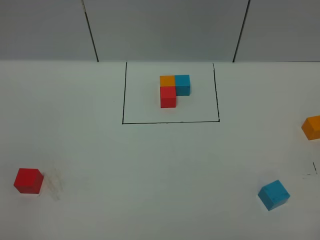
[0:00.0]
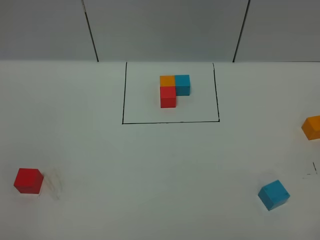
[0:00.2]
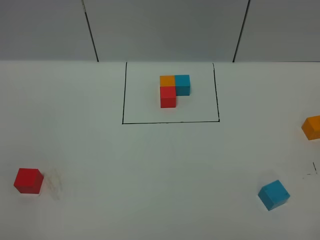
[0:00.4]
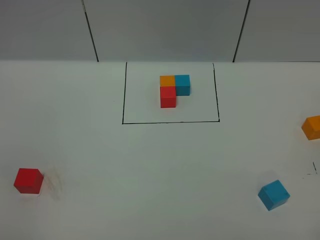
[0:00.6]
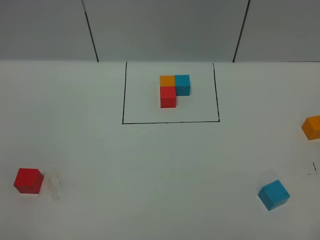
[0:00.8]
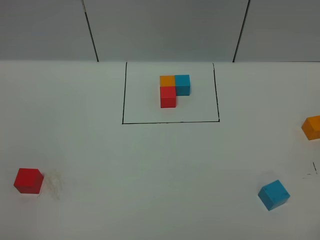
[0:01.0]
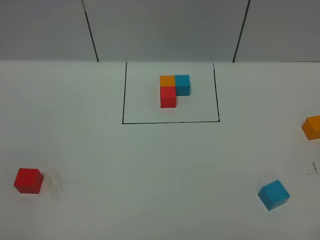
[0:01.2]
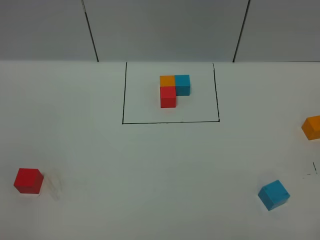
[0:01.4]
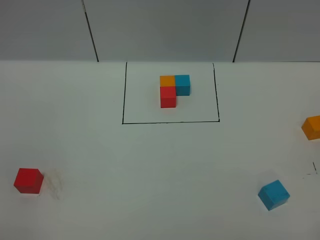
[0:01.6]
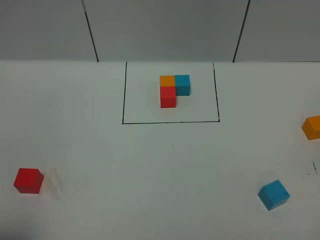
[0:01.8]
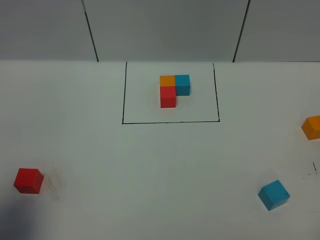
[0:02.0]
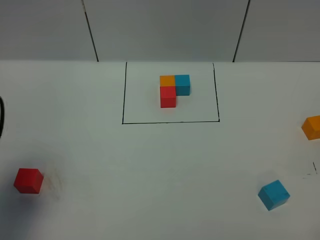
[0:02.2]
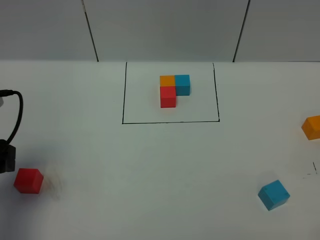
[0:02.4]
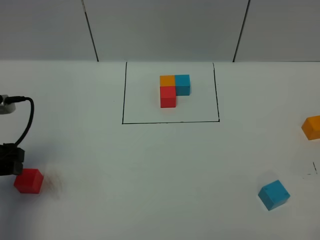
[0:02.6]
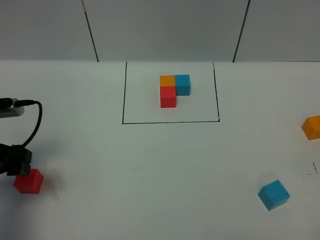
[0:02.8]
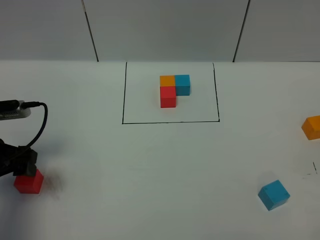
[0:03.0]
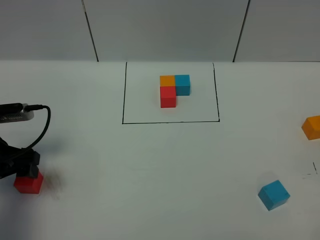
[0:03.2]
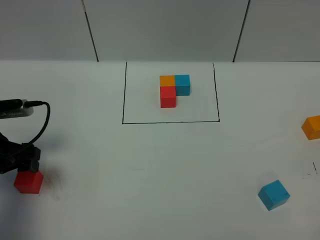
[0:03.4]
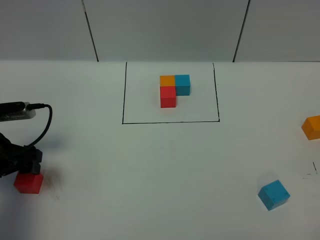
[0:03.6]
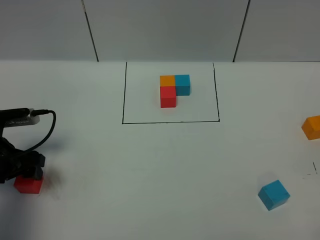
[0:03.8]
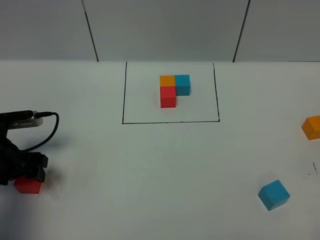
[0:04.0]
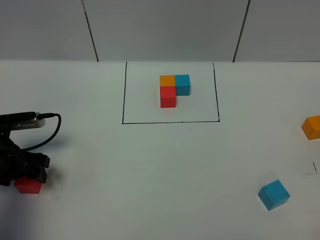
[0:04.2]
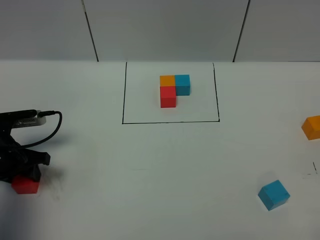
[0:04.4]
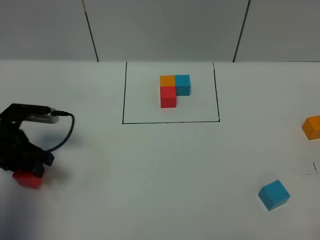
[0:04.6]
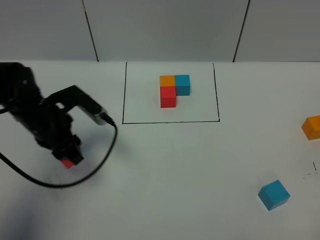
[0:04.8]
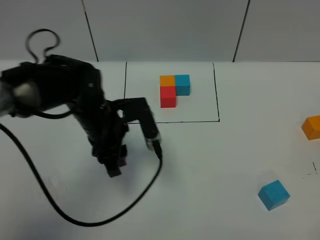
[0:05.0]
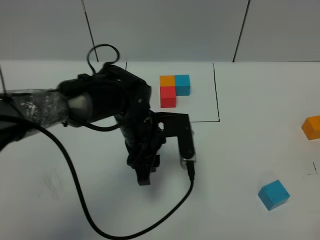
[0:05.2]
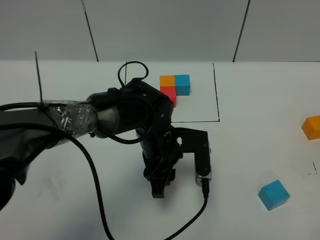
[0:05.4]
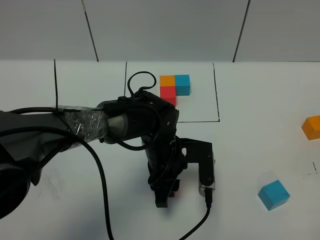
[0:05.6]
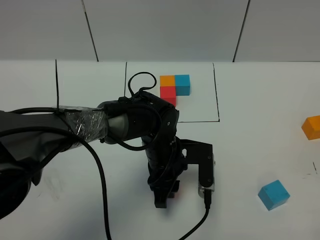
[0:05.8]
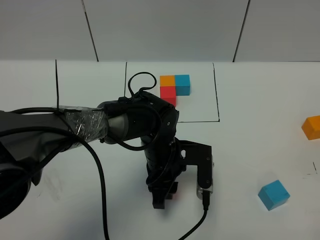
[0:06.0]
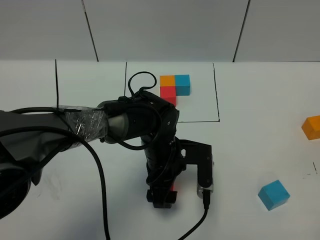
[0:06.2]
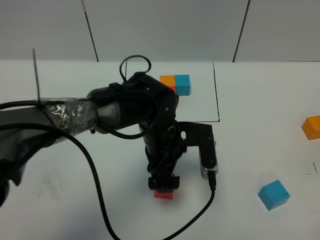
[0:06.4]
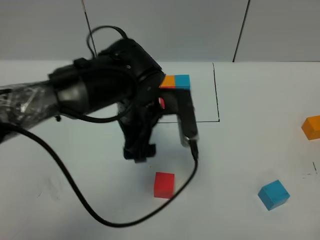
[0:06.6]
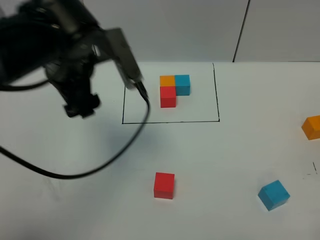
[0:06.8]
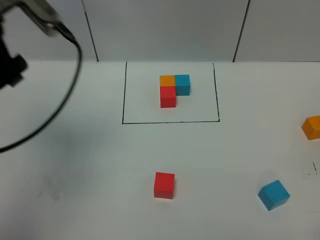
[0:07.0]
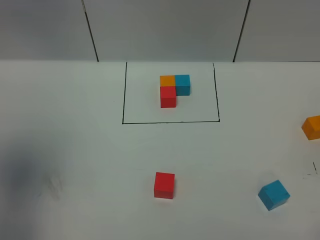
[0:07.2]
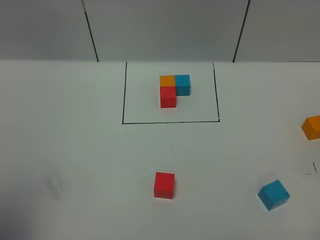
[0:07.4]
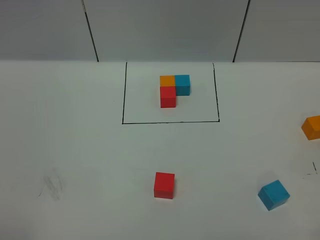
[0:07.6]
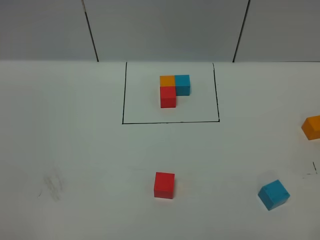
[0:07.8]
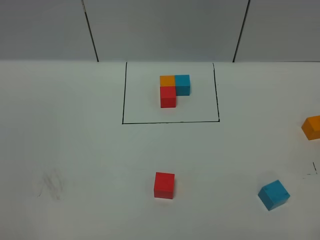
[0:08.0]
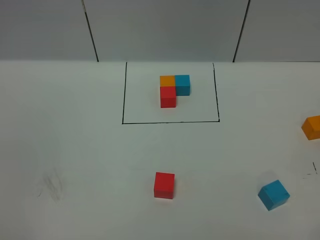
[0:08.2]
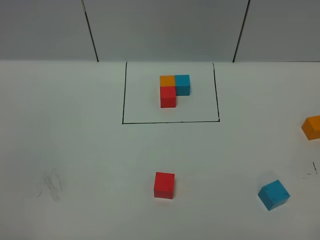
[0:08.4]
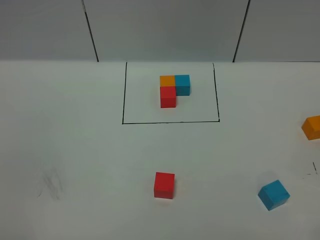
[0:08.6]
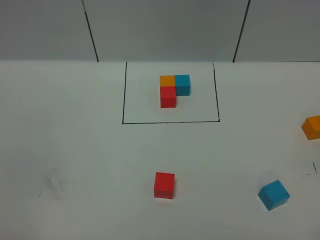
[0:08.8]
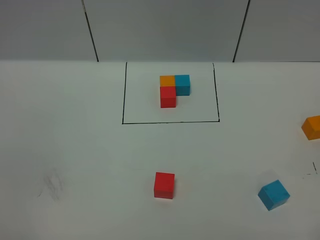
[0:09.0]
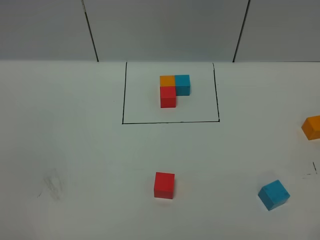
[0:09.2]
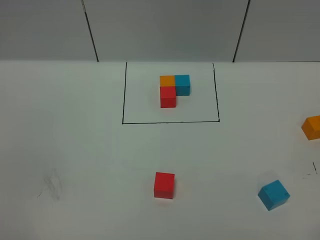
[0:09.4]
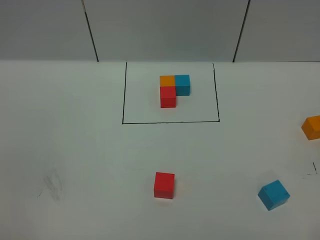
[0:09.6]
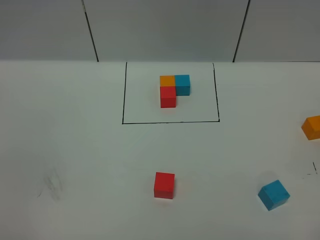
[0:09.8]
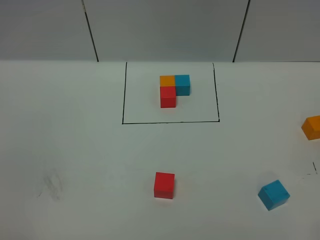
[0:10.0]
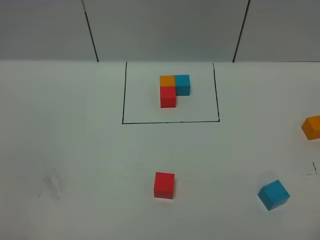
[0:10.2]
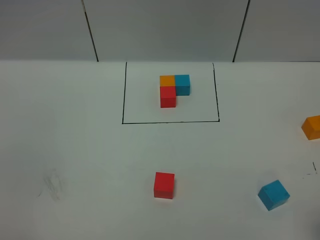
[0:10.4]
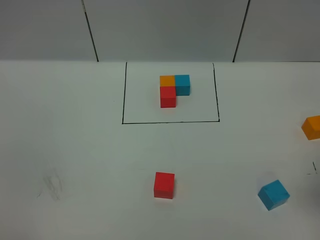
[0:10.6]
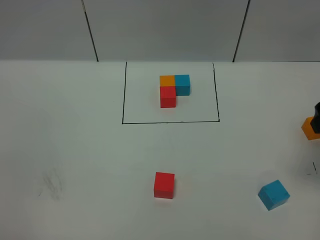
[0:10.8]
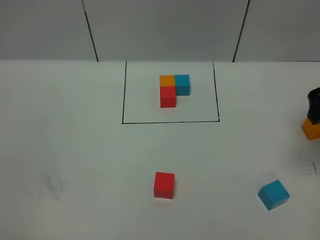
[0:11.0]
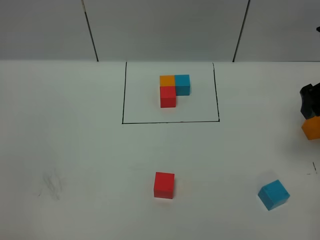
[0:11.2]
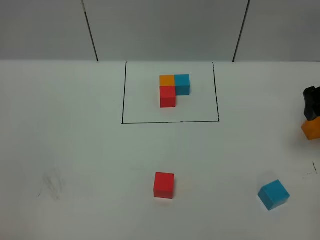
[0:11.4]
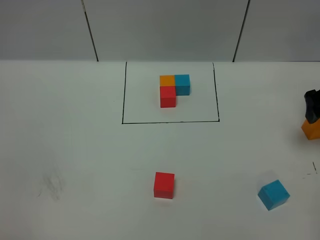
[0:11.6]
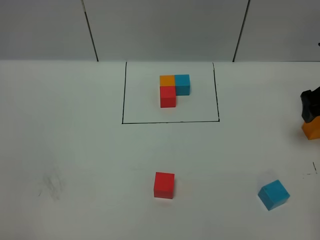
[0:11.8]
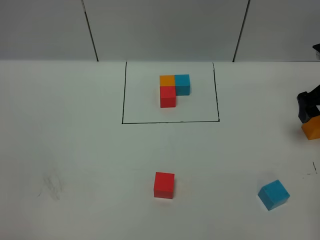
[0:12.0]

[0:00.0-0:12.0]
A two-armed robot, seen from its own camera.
Task of the whole recording: According to the building block template in front, assemble the scattered blocks together.
Step, 0:02.2 to 0:06.4: Put the red cube in the center of the table.
0:01.6 to 0:03.0: The left gripper moves forward, roughly 25 cm.
0:03.0 to 0:04.4: The left gripper is displaced downward by about 5 cm, and closes up.
0:04.4 to 0:06.0: The left gripper is displaced to the right by some 30 cm.
0:06.0 to 0:07.6: The left gripper goes roughly 60 cm upward, backward and to the left, and opens up.
0:10.4 to 0:12.0: The right gripper shifts roughly 25 cm forward.

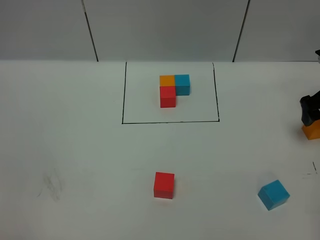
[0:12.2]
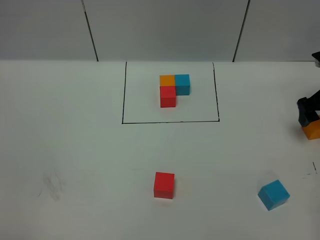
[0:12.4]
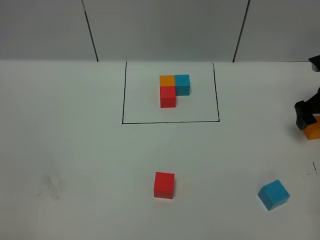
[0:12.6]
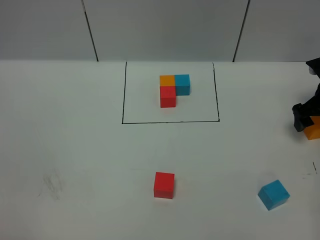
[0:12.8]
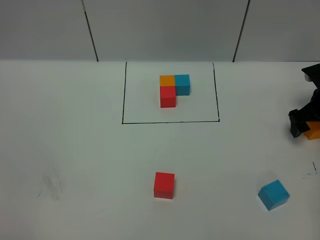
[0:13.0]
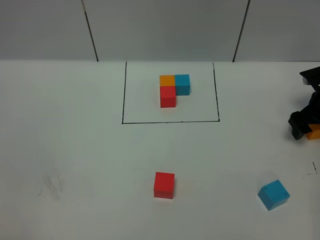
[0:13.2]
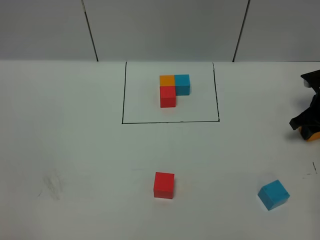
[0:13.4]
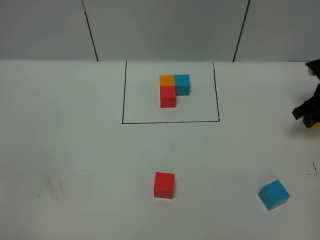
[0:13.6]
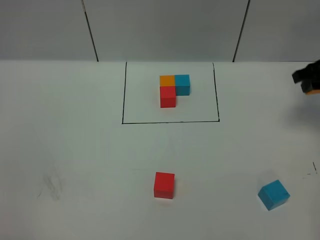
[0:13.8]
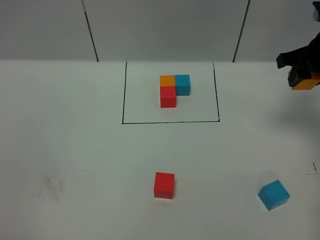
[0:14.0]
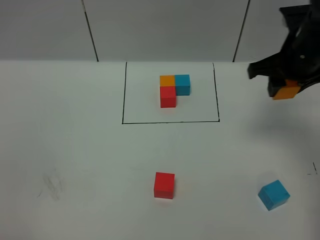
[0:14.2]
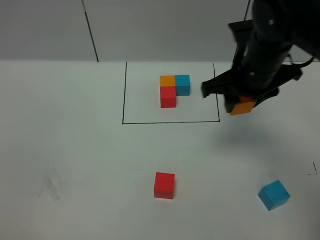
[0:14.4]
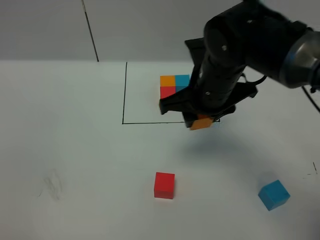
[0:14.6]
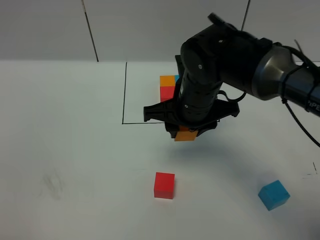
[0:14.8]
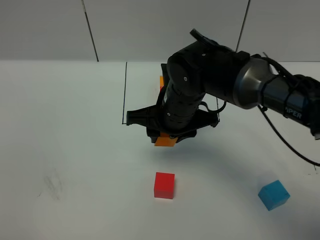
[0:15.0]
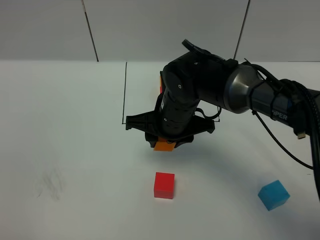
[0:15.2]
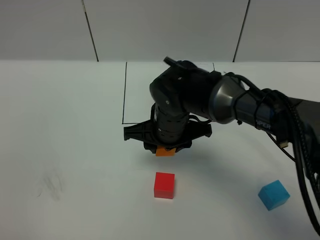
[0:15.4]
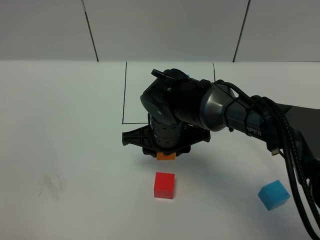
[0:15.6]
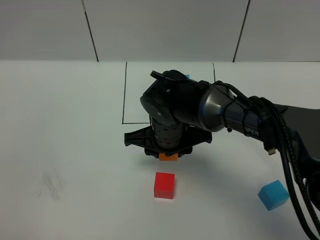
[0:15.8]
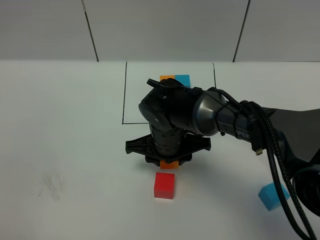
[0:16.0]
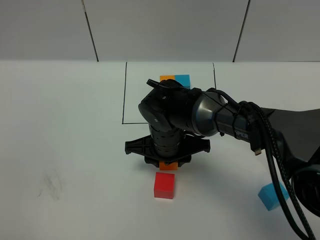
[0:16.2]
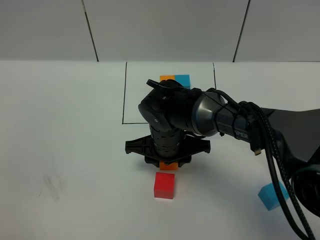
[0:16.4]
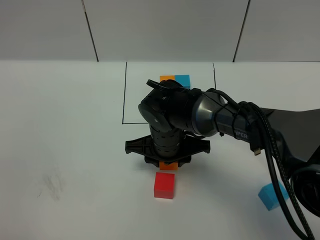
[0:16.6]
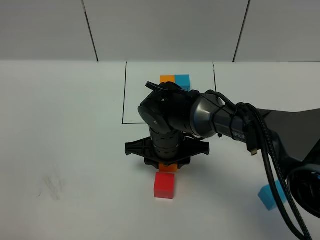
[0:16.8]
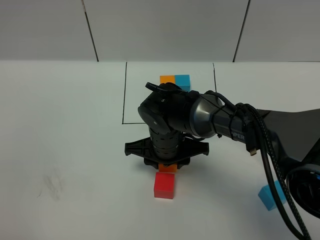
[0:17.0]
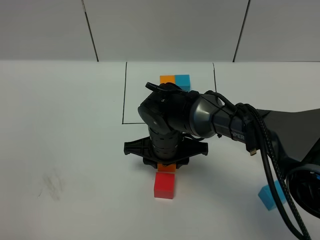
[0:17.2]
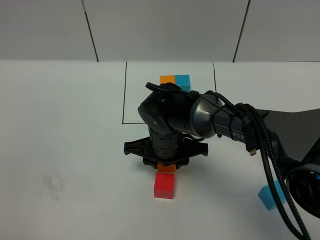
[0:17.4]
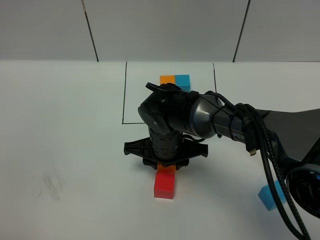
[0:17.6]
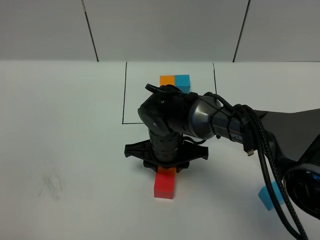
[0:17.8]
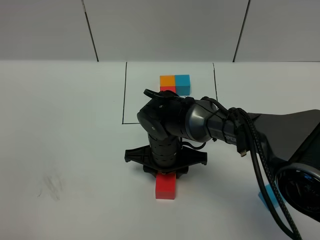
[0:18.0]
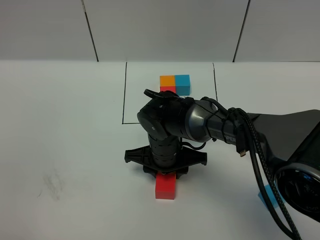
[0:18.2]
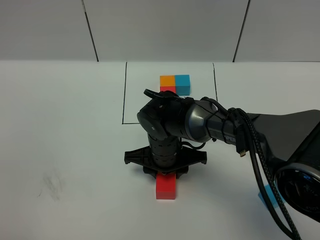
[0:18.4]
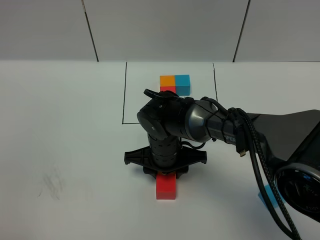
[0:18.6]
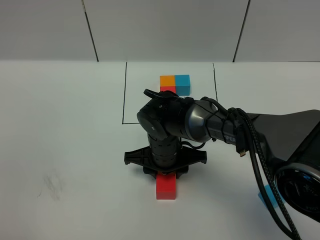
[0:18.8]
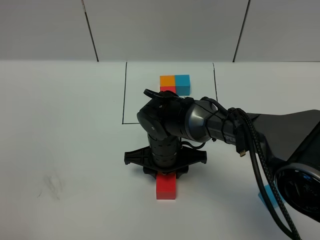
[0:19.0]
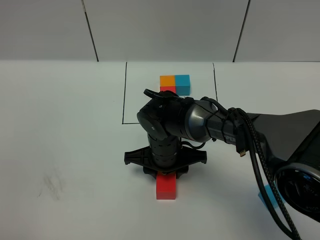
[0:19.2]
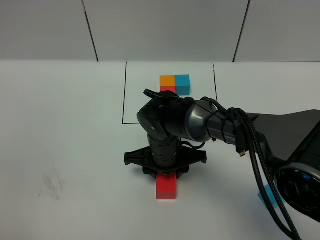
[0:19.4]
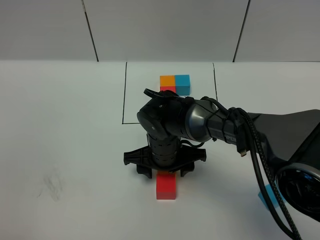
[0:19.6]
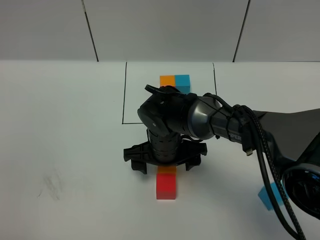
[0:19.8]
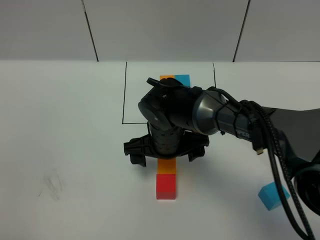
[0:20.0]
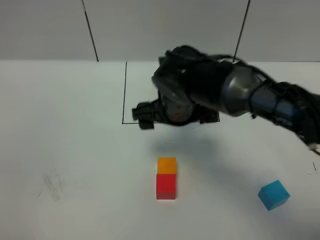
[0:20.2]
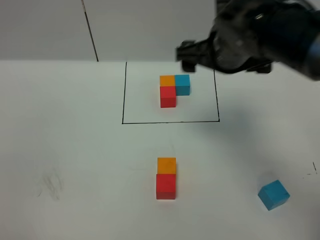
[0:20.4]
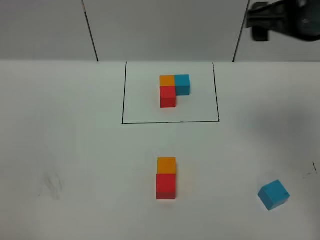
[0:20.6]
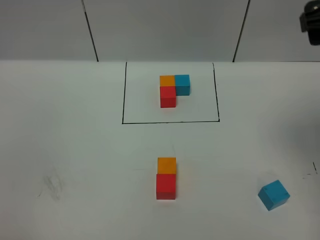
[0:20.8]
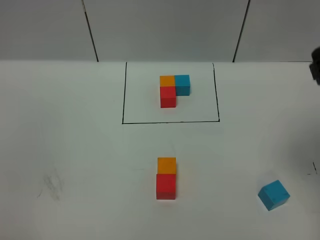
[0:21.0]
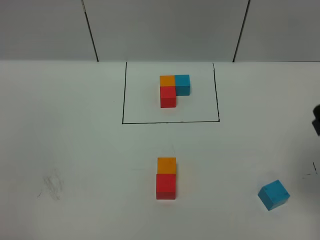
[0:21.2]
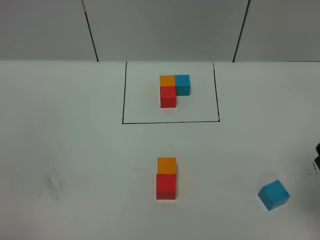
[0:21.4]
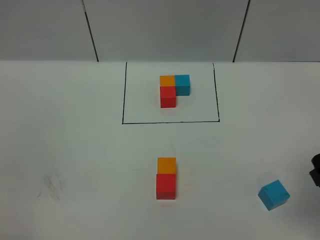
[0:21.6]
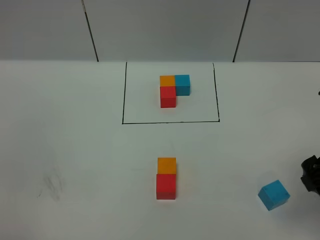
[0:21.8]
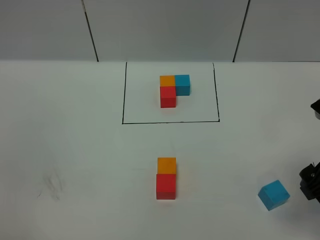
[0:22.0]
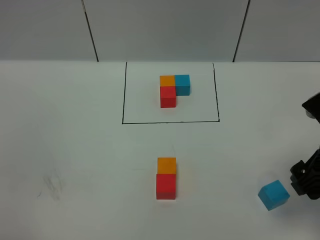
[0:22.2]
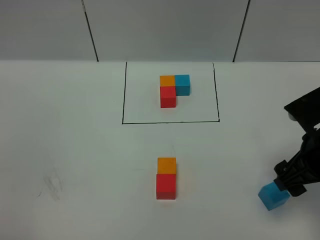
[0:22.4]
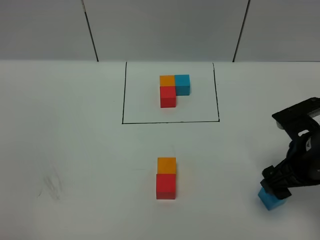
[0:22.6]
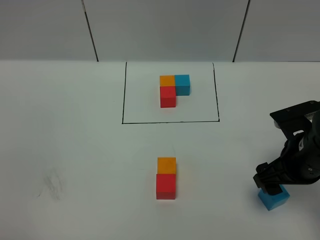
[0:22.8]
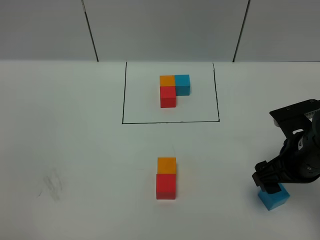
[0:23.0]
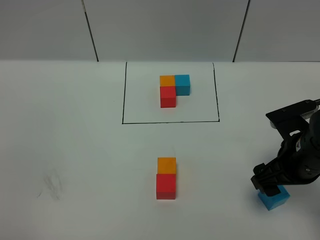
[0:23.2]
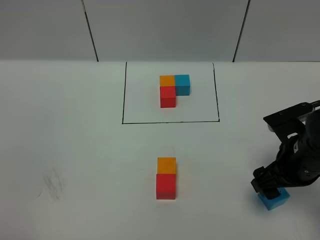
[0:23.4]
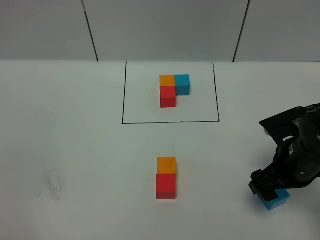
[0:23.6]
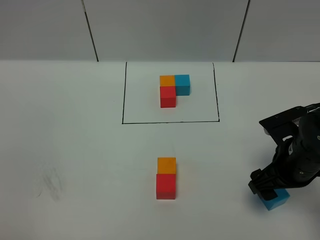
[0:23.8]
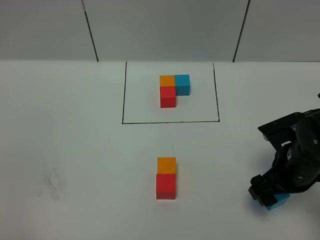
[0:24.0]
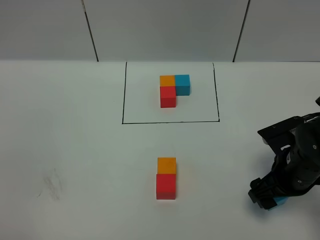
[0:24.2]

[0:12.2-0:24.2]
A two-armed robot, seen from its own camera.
Task of the whole recording: According to the building block template in front, assemble the scattered blocks together.
Step, 0:12.2 to 0:20.0: Put the orange cube on the behind of the red cube.
0:12.2 to 0:13.8: The right gripper heads upward, covering approximately 5 cm, and closes its fingers.
0:13.8 to 0:15.2: The right gripper heads to the left, covering roughly 30 cm.
0:15.2 to 0:16.6: The right gripper shifts by roughly 5 cm.
0:16.6 to 0:18.2: The grippers move only a little.
0:18.2 to 0:19.8: The right gripper opens up.
0:19.8 to 0:21.2: The right gripper goes about 35 cm to the right, upward and backward.
0:21.2 to 0:22.6: The right gripper moves downward, about 15 cm.
0:22.6 to 0:24.2: The right gripper heads downward, covering approximately 5 cm.
